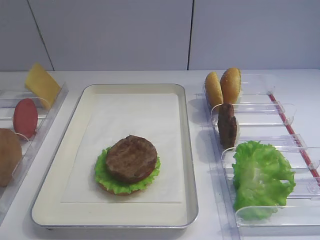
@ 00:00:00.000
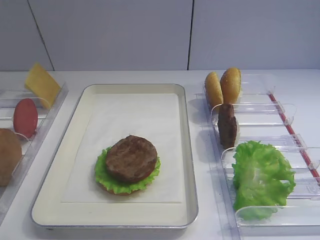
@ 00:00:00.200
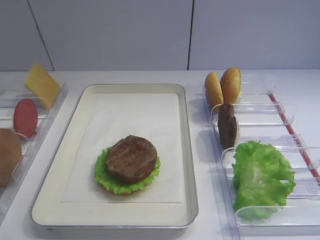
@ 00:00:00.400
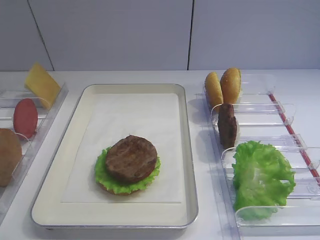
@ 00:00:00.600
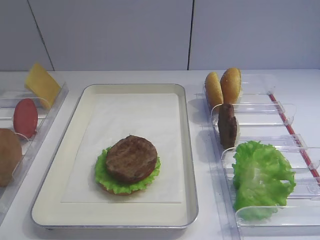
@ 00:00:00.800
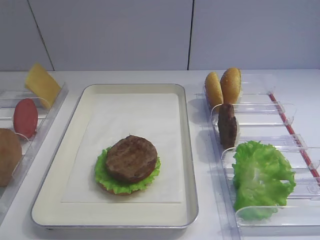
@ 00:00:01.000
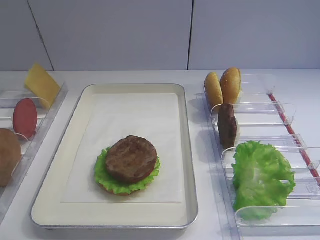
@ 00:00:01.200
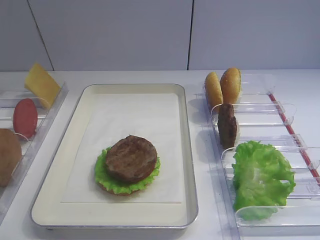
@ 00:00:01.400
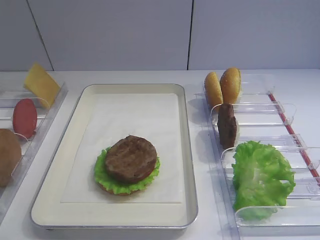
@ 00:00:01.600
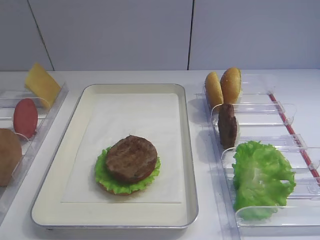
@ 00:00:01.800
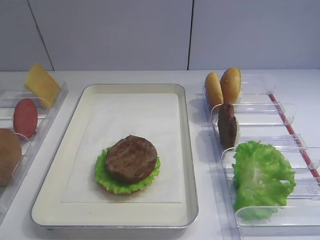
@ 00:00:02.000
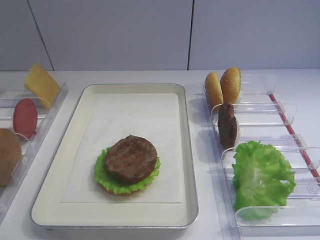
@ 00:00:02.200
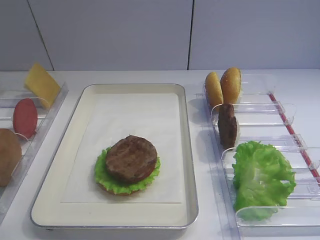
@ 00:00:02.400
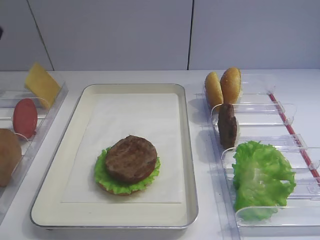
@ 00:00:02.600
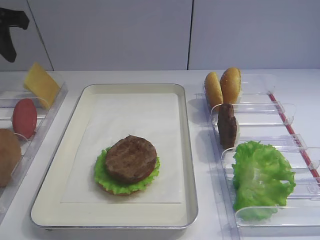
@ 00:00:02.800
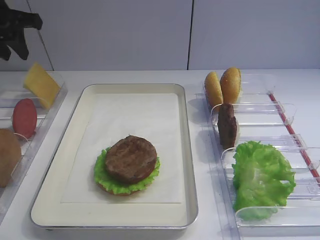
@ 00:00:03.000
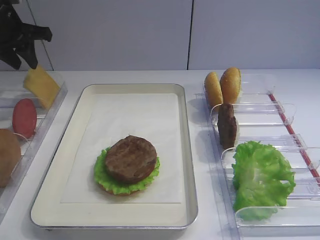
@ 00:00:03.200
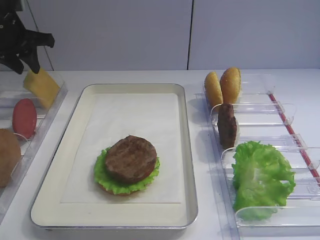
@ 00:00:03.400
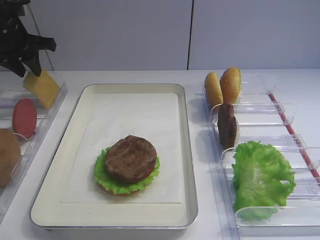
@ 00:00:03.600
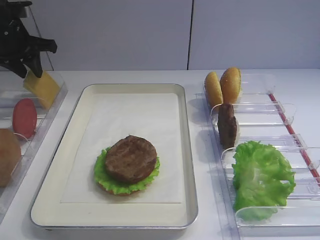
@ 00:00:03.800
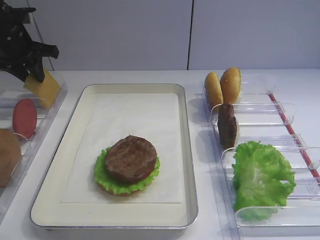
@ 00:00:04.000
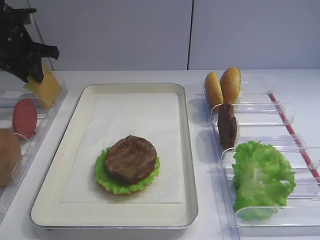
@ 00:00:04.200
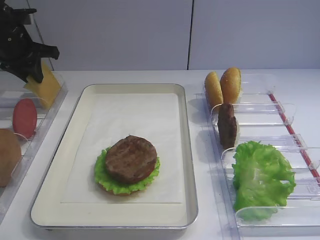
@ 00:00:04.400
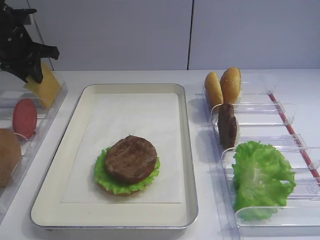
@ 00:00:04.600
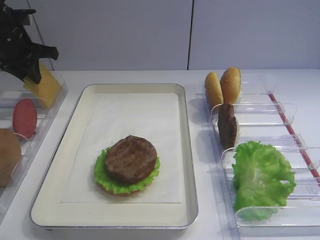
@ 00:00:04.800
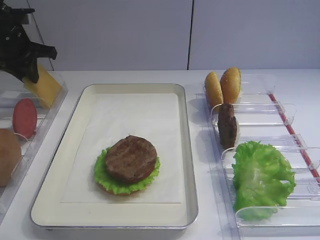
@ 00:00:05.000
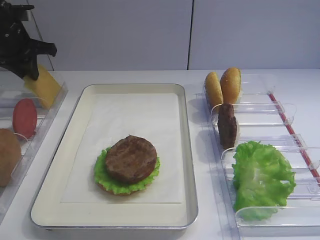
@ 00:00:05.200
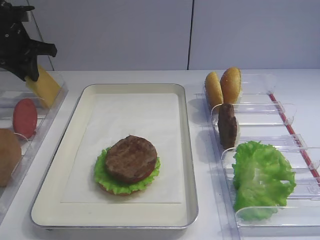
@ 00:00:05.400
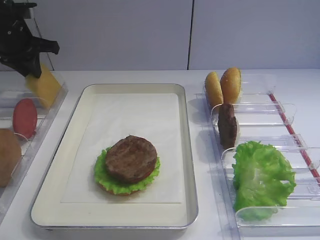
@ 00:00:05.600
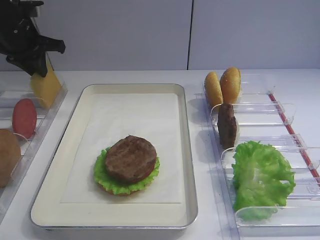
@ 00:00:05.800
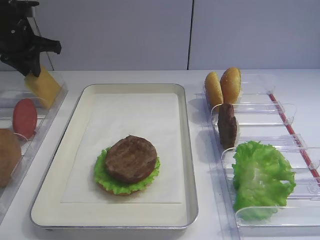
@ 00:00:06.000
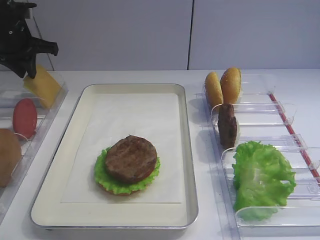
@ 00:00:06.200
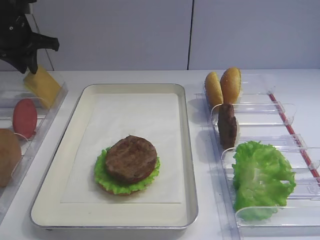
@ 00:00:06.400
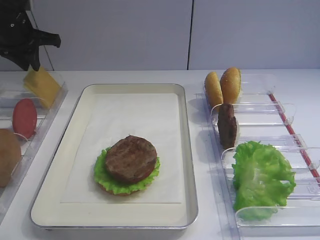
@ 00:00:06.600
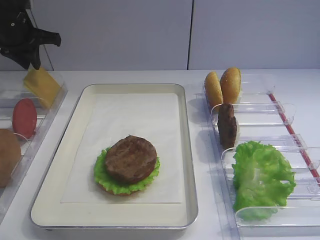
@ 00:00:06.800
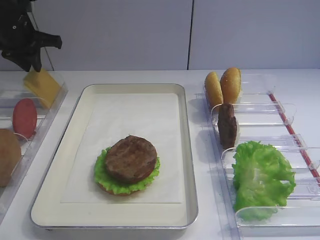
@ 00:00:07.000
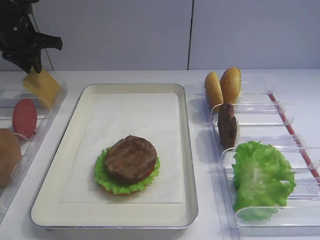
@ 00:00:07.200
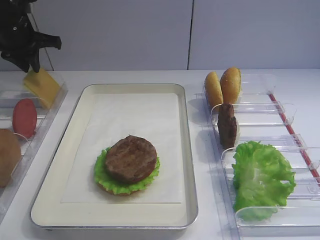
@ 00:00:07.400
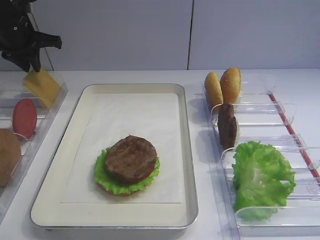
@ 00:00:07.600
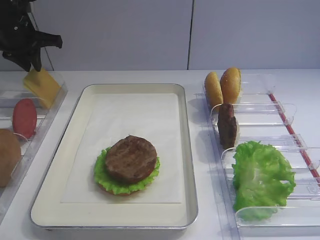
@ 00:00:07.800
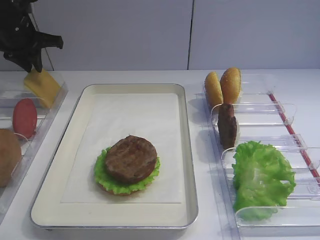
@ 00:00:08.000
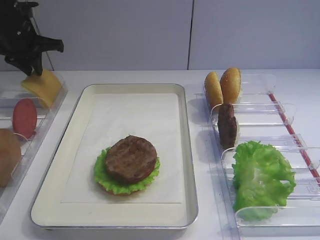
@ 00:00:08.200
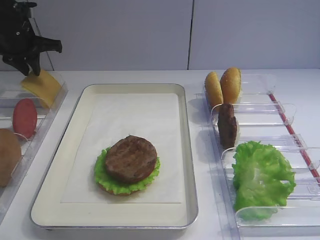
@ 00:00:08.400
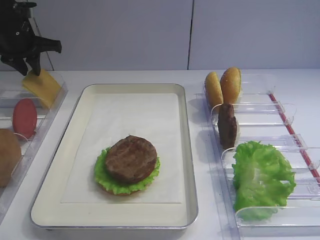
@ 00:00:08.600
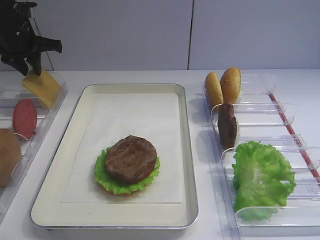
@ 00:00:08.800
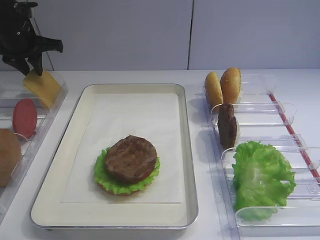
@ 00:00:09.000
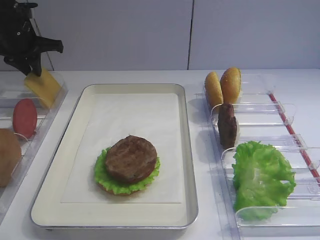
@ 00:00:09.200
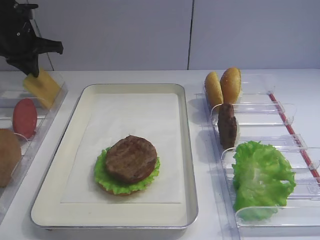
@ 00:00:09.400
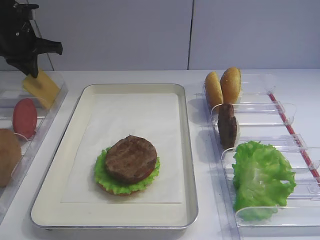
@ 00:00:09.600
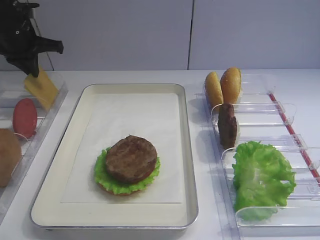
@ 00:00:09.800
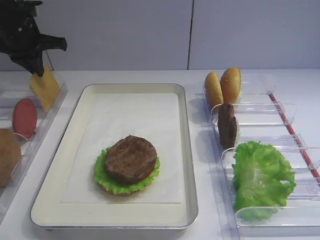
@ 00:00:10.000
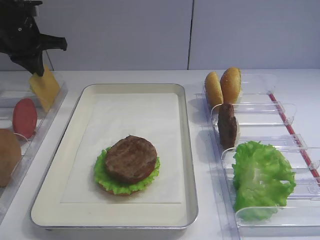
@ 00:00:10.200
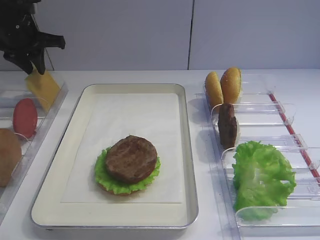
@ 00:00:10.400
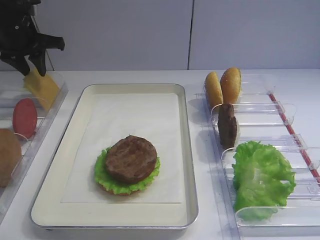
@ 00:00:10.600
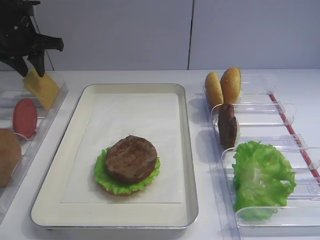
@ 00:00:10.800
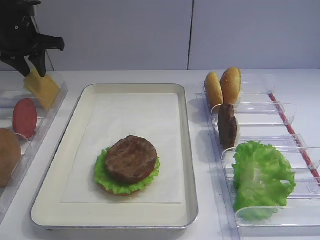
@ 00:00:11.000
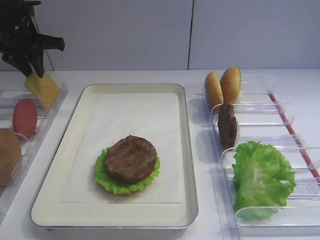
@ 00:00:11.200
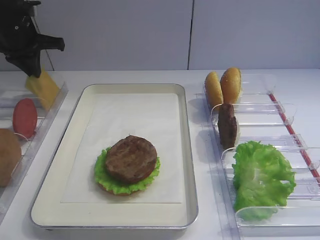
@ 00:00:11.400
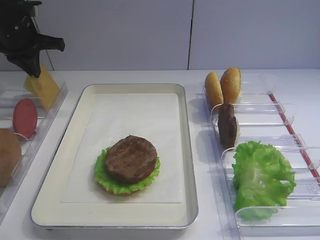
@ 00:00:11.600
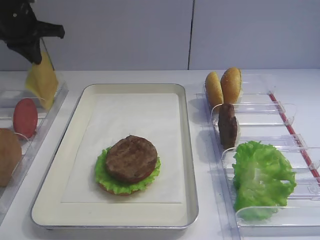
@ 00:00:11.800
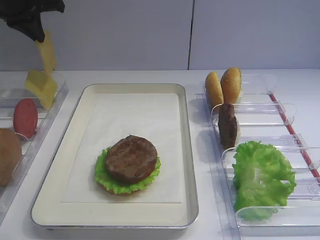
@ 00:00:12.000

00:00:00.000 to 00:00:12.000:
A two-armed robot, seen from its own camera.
Step, 00:00:00.000 to 00:00:11.800: Pick up the cheese slice with the left gripper.
00:00:01.600 to 00:00:03.000: The left gripper goes about 40 cm forward.
00:00:03.000 to 00:00:04.400: The left gripper moves downward, approximately 5 cm.
00:00:04.400 to 00:00:06.000: There are only small adjustments of the grippers.
00:00:06.000 to 00:00:07.600: The two grippers keep their place.
00:00:07.600 to 00:00:09.000: Both grippers stay about where they are.
00:00:09.000 to 00:00:10.400: The left gripper closes, then opens again.
00:00:10.400 to 00:00:12.000: The left gripper is displaced upward by roughly 5 cm, and closes.

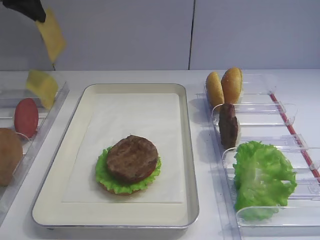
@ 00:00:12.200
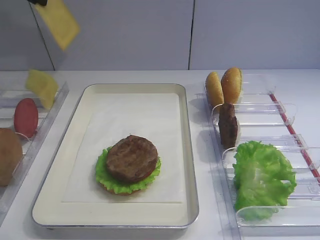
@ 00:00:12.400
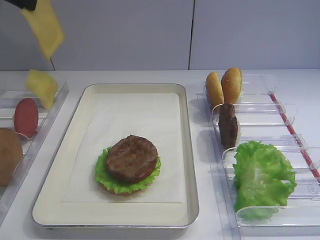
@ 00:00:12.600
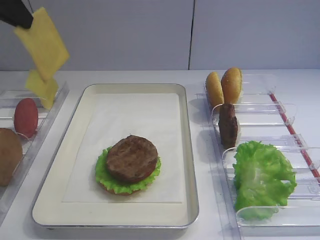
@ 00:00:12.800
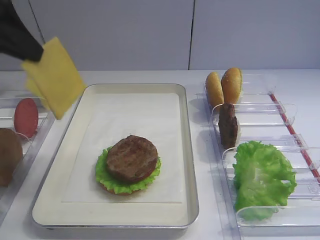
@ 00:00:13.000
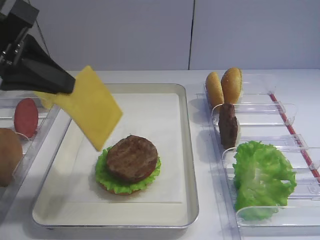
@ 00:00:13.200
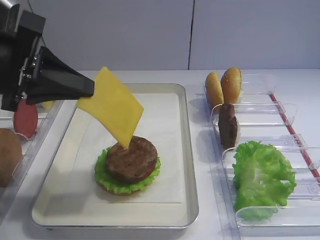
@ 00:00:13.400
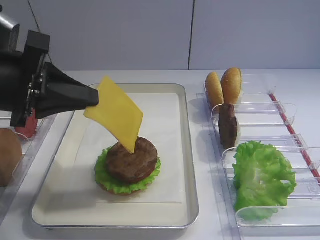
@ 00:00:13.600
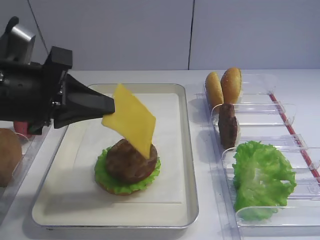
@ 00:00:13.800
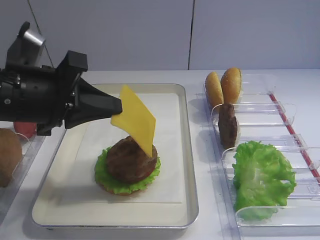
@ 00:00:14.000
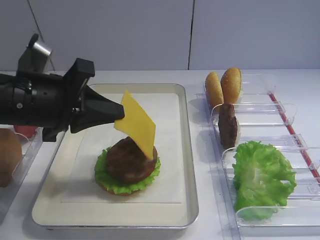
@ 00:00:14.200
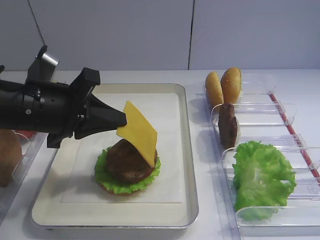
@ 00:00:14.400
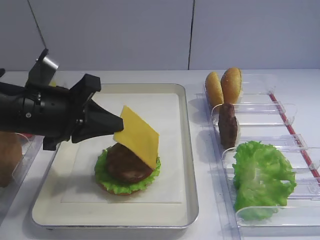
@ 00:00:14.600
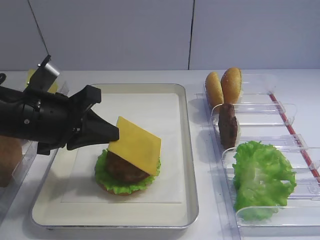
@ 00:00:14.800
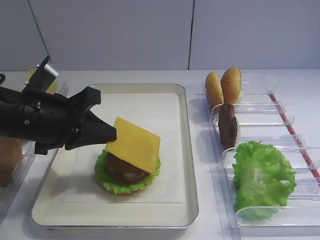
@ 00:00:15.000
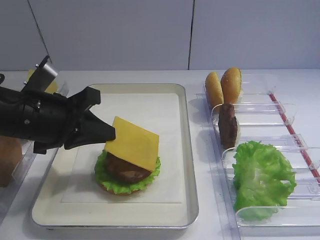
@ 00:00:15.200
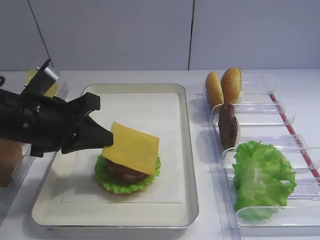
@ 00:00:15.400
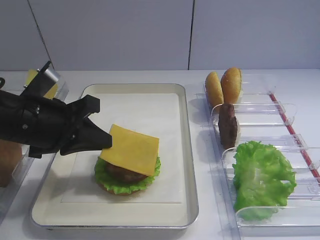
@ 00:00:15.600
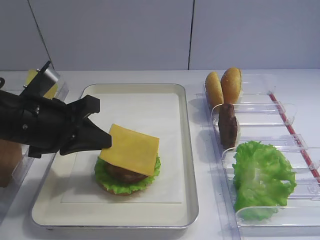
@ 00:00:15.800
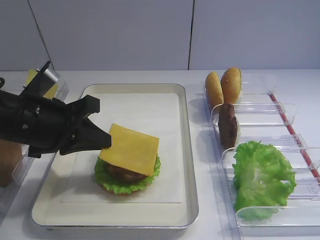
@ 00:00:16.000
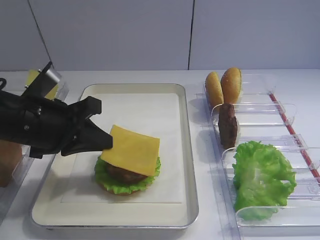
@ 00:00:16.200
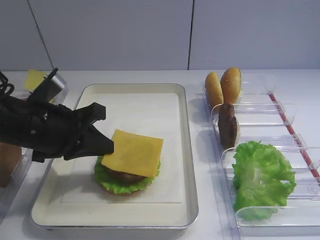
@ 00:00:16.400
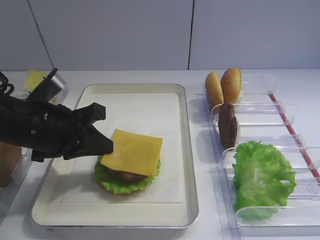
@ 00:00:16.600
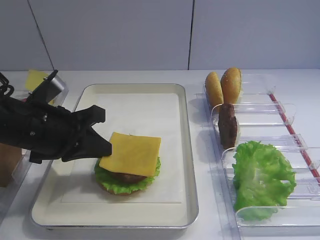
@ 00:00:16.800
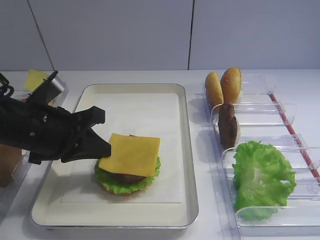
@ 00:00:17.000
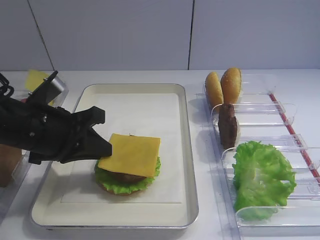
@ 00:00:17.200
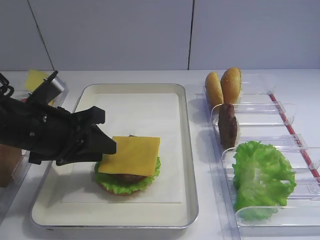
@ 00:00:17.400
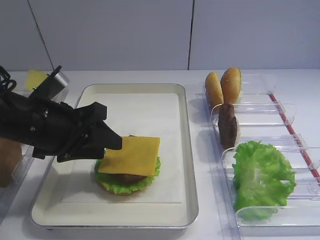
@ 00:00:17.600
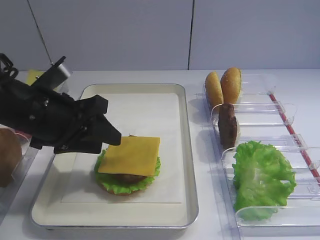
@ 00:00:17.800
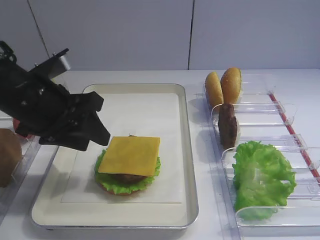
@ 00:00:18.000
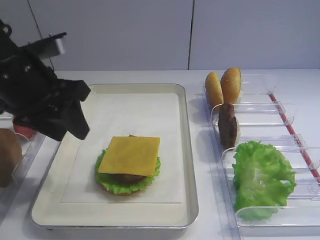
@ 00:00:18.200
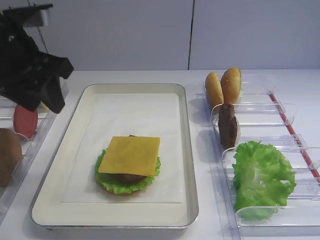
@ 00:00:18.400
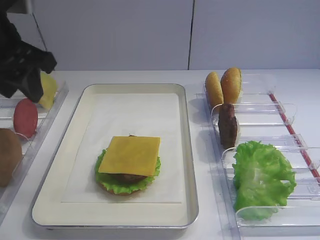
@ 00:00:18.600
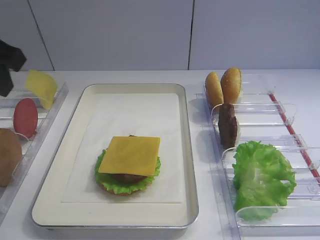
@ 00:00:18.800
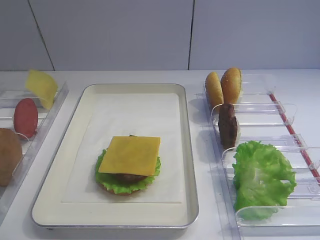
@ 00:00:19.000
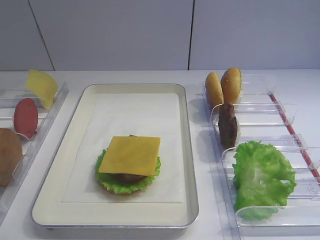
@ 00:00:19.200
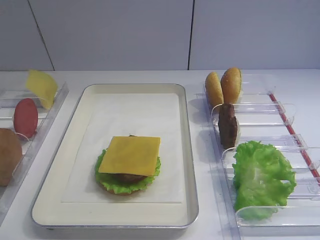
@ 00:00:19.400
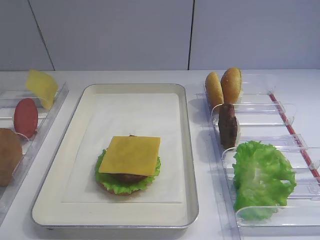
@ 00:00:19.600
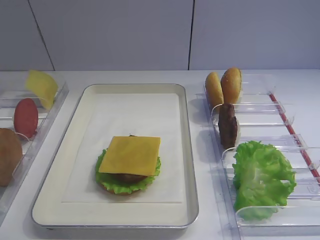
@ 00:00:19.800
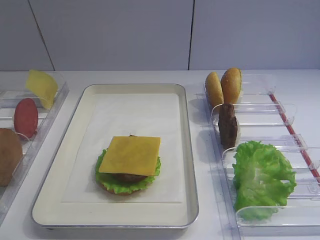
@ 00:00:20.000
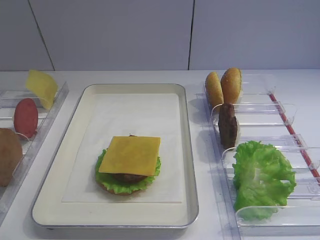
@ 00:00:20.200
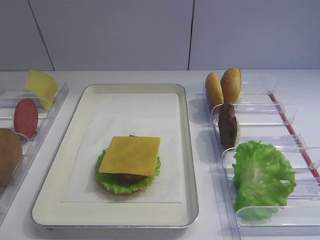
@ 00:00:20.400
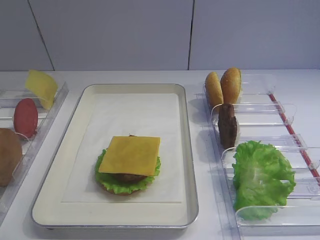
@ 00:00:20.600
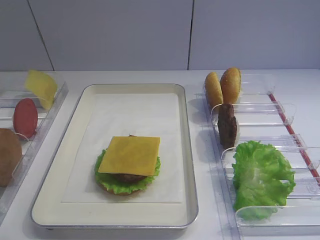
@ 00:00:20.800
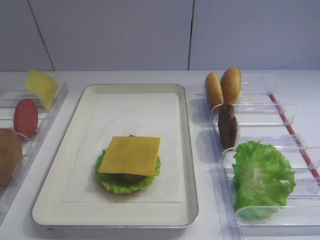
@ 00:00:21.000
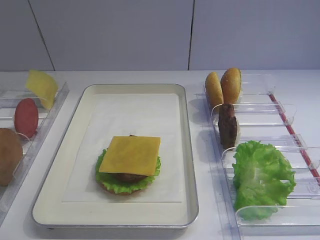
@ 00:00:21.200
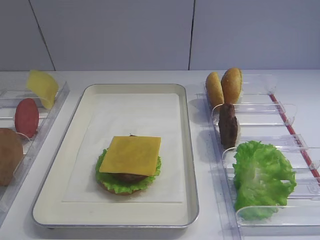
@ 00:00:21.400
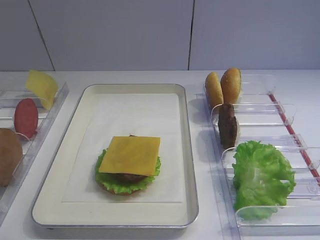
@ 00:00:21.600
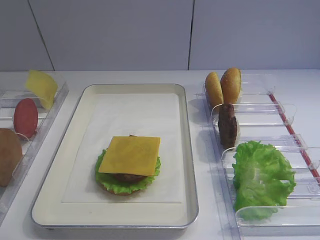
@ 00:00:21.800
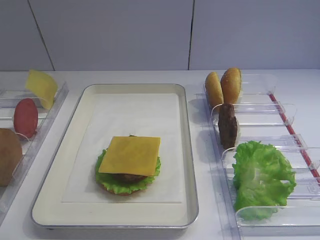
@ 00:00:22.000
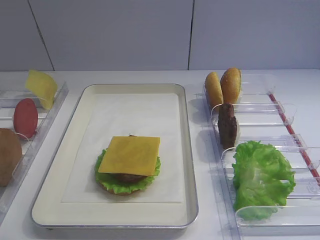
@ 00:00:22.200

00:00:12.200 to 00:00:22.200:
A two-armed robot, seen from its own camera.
Step, 00:00:12.200 to 00:00:17.800: Place the cheese slice on the cutlet with the left gripper.
00:00:12.200 to 00:00:13.600: The left gripper moves backward and downward, about 20 cm.
00:00:13.600 to 00:00:15.000: The left gripper is displaced downward by some 5 cm.
00:00:15.000 to 00:00:16.400: There are only small adjustments of the grippers.
00:00:16.400 to 00:00:18.000: The left gripper opens its fingers.
00:00:18.000 to 00:00:19.400: The left gripper goes roughly 20 cm backward, upward and to the left.
